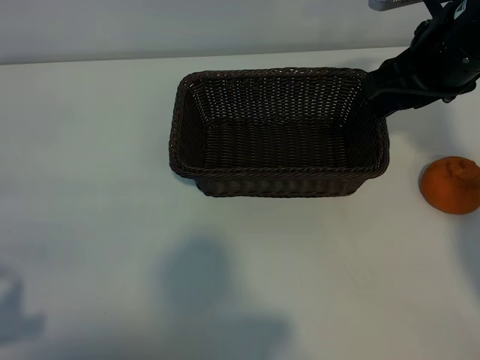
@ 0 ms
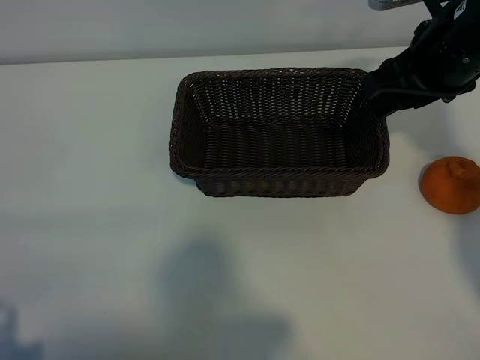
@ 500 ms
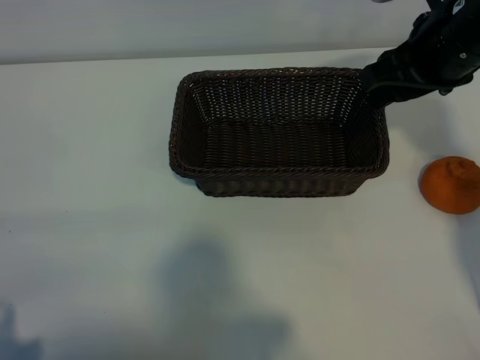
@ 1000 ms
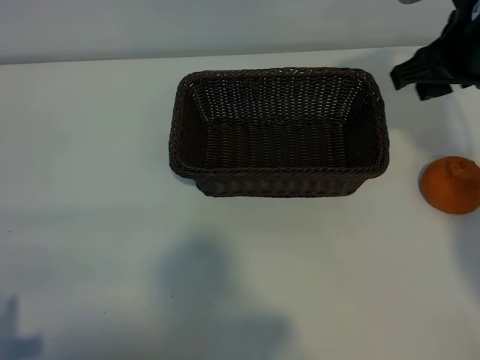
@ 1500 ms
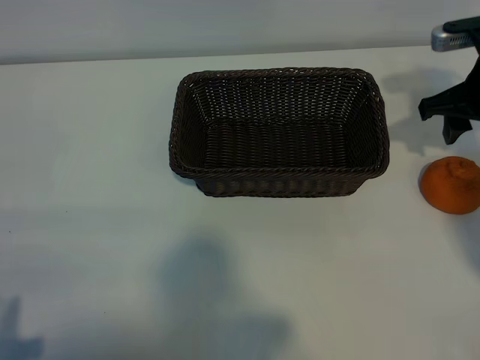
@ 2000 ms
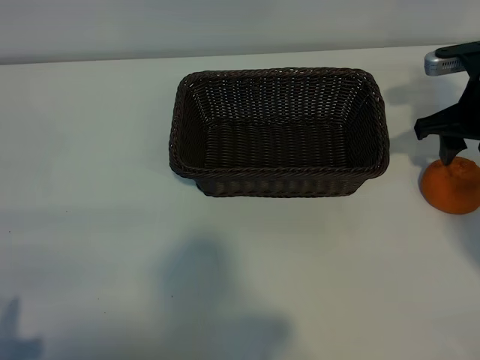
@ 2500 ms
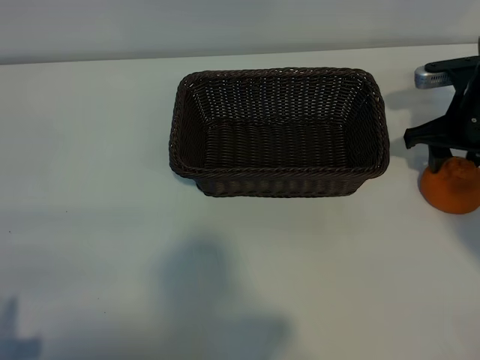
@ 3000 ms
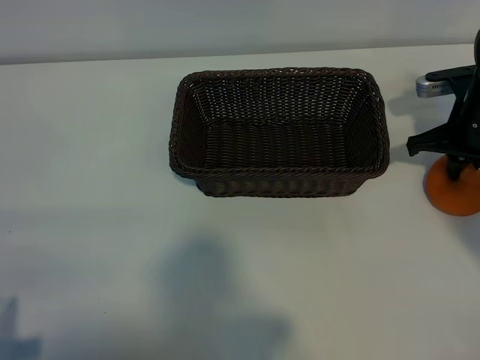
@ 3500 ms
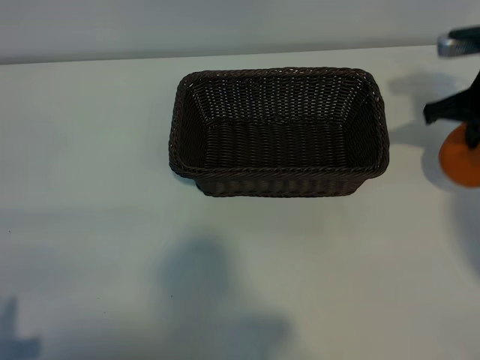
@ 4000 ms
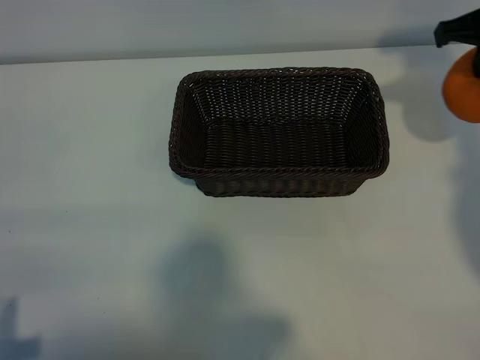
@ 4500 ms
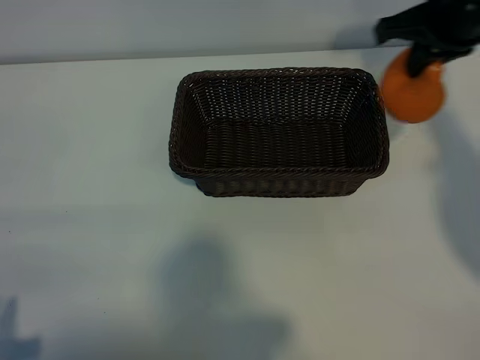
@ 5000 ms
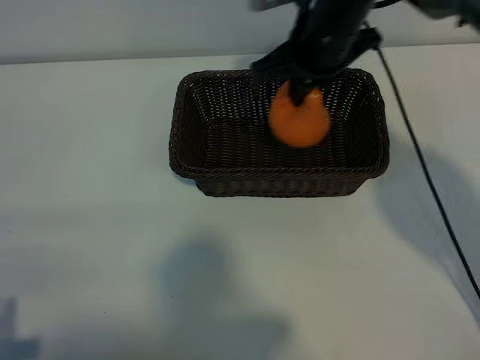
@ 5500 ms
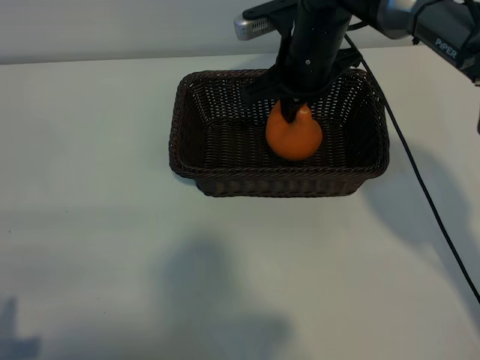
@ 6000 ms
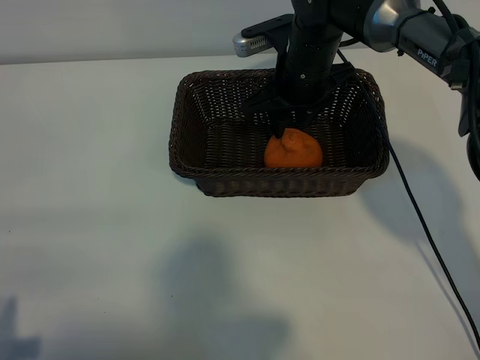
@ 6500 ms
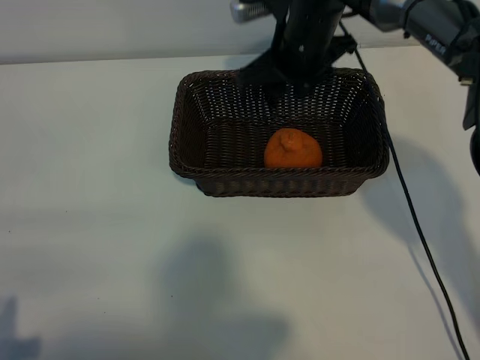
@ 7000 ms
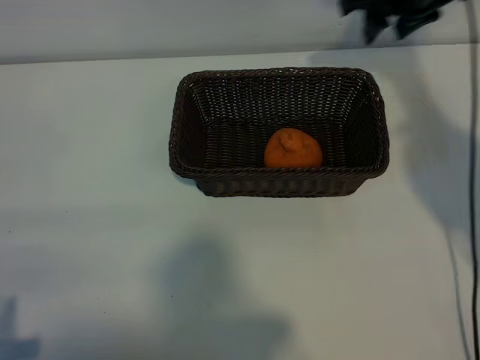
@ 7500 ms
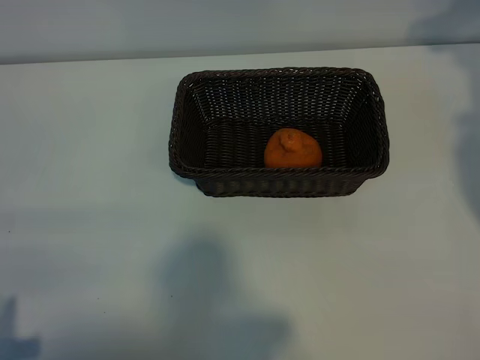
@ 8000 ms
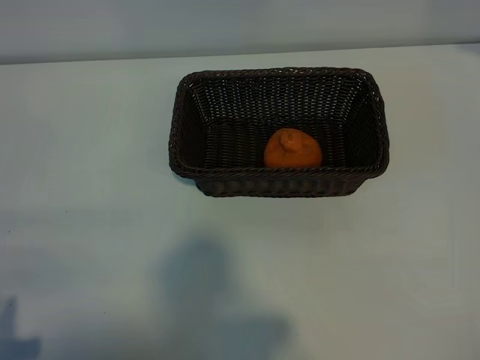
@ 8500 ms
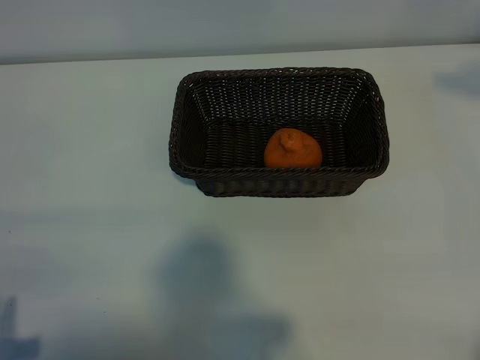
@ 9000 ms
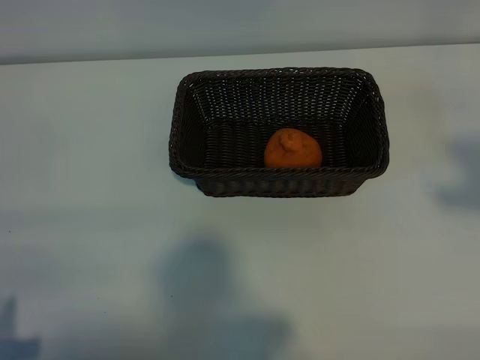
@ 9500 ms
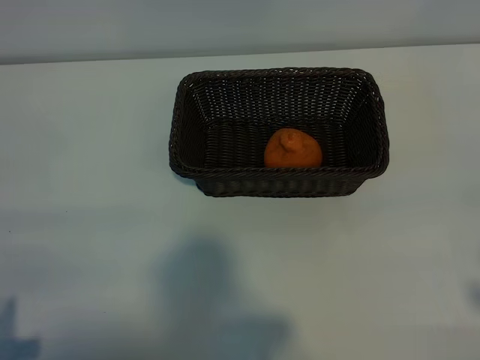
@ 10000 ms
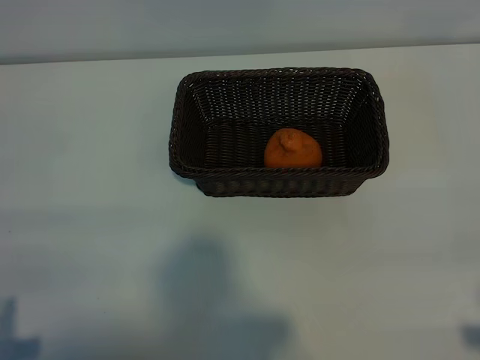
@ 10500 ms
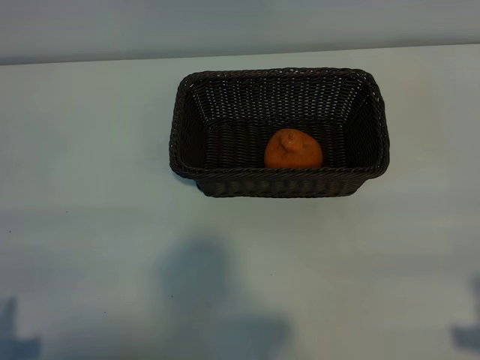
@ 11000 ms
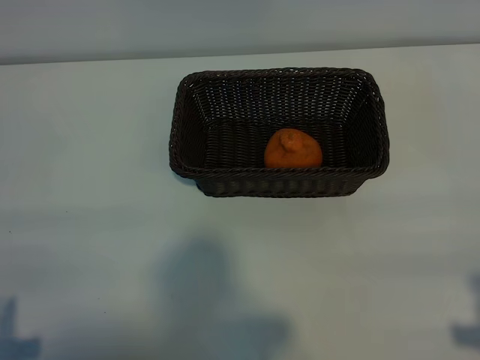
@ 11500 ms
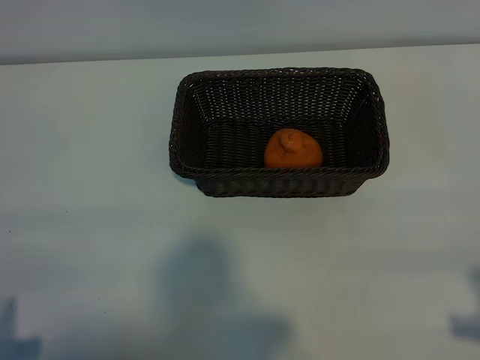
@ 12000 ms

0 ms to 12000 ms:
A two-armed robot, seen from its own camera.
Task of the whole recording: pick up the orange and put it into the basket.
Step, 0 ms to 3500 ms: Grasp the orange with right gripper.
Step, 4000 ms to 6000 ms: Place the orange in the basket with right gripper.

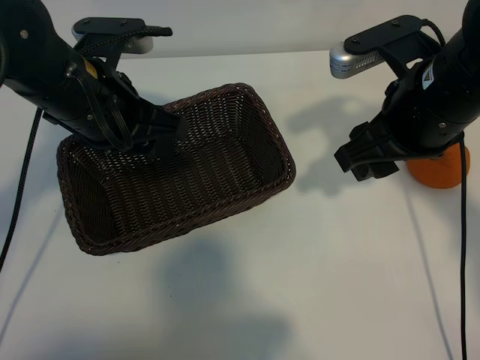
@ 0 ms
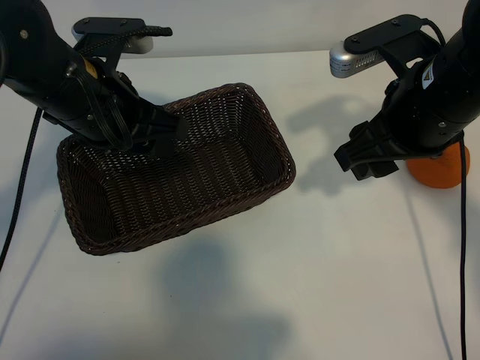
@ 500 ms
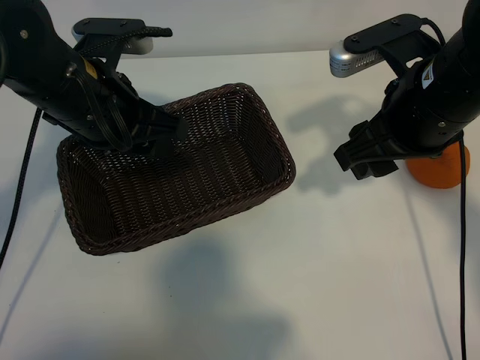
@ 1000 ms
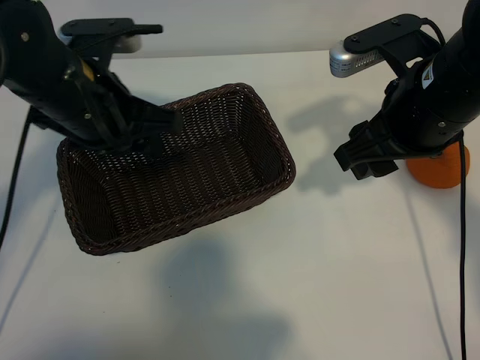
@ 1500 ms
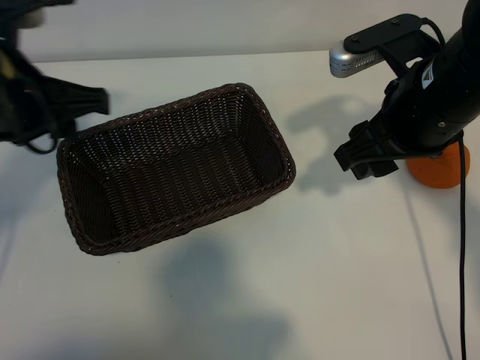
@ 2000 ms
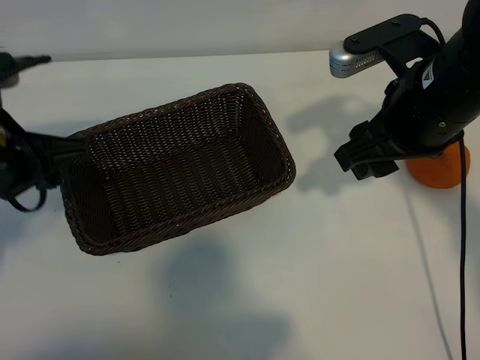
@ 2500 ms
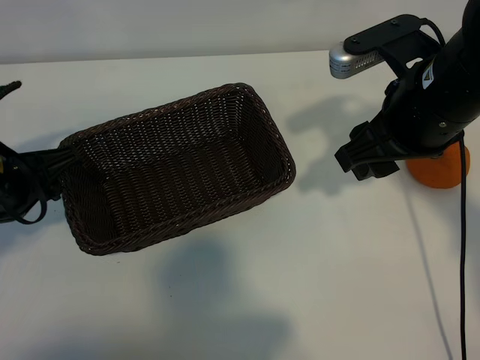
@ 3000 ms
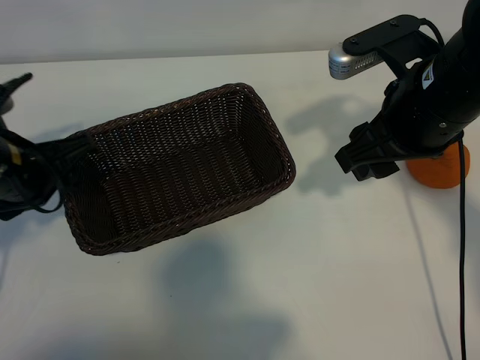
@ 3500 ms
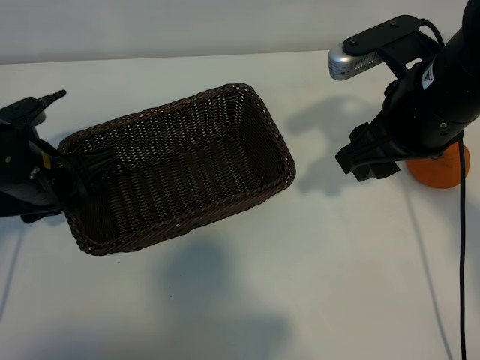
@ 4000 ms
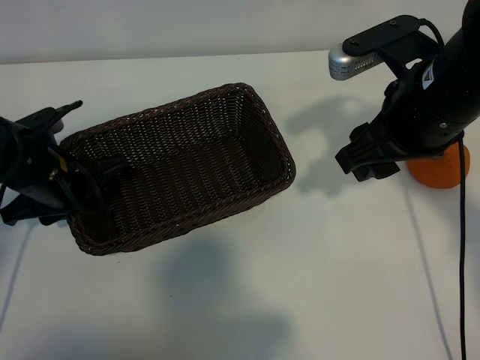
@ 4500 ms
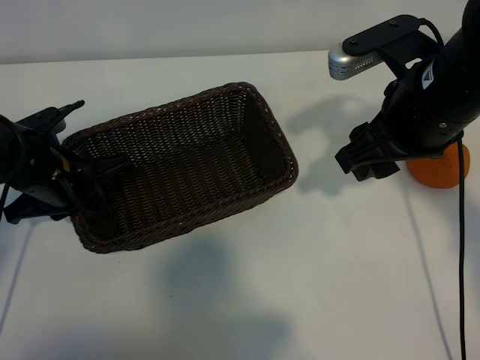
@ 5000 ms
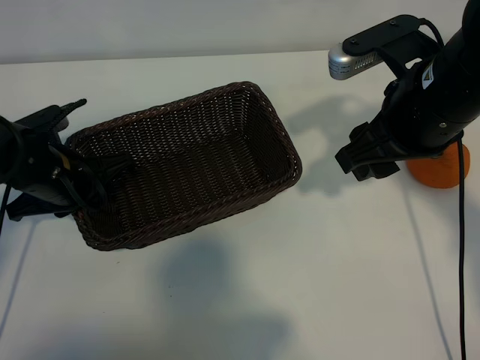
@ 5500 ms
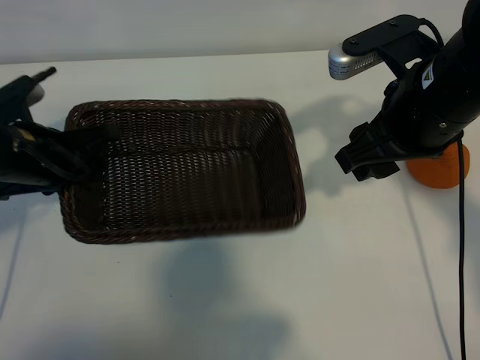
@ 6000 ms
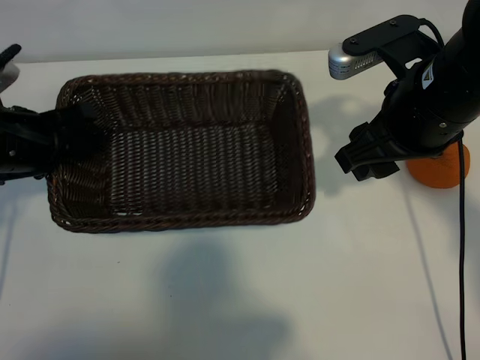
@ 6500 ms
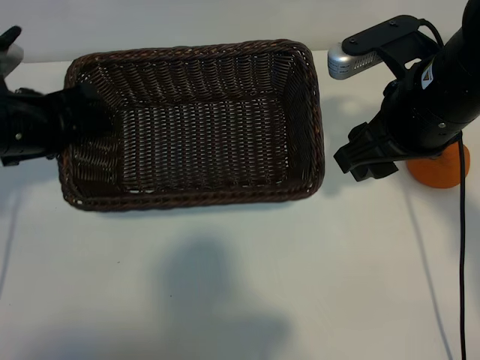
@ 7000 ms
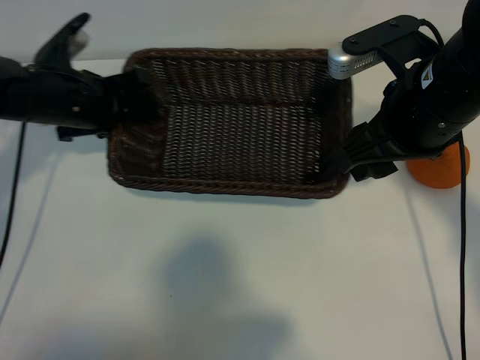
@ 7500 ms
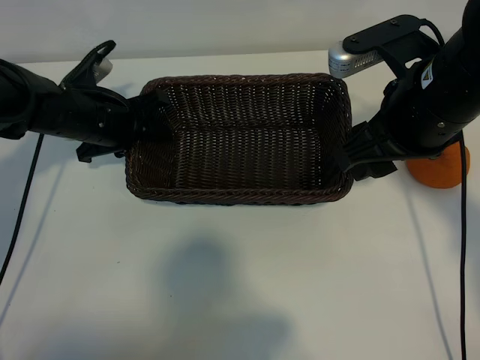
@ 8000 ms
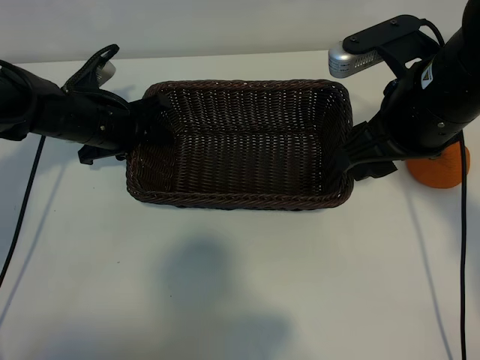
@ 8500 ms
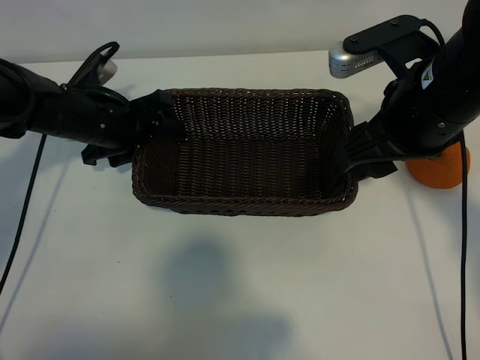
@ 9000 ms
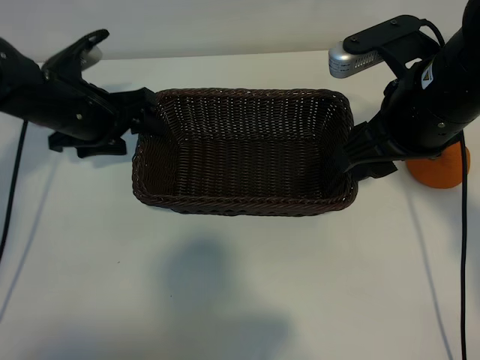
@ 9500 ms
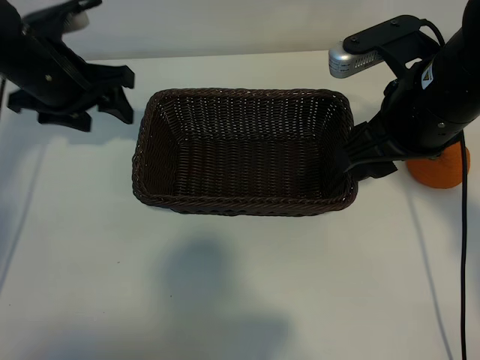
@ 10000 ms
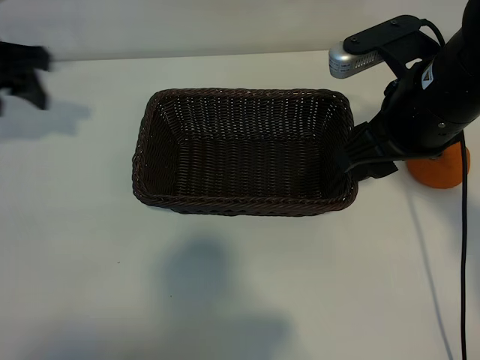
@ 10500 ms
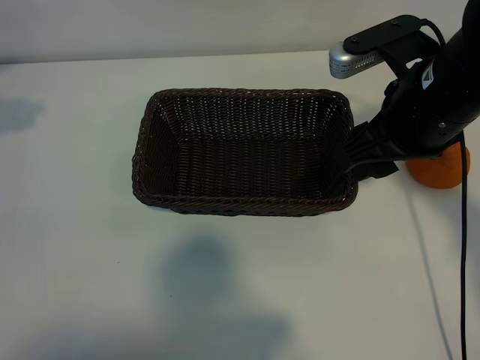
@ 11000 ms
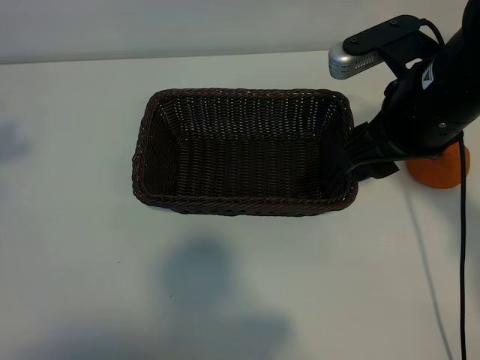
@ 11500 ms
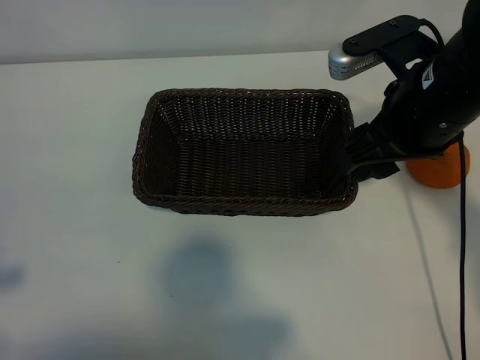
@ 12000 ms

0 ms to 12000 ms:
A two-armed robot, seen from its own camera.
Task of the whole recording: pick up the orange and put it into the basket.
Step, 1500 ms to 5000 ms: Grasp the basket with left gripper.
Step, 6000 ms to 8500 ms: Place the basket in the center of view with left gripper.

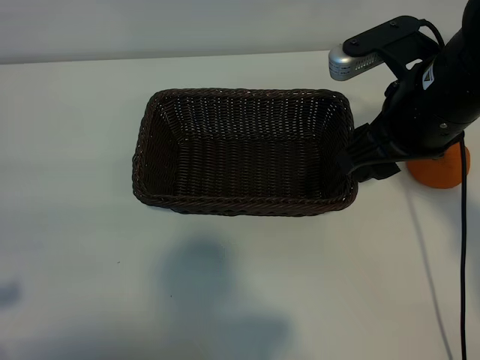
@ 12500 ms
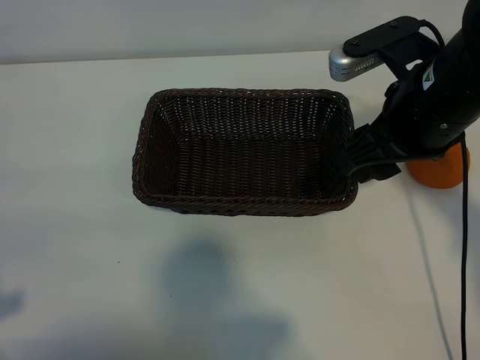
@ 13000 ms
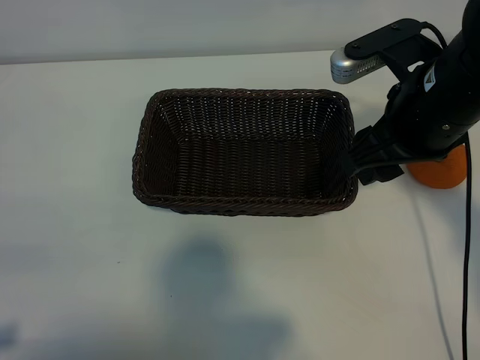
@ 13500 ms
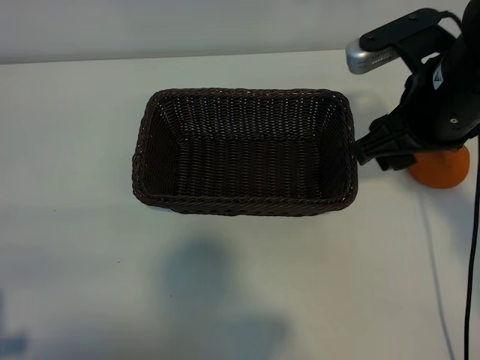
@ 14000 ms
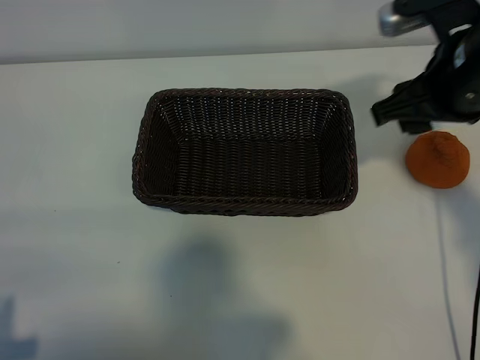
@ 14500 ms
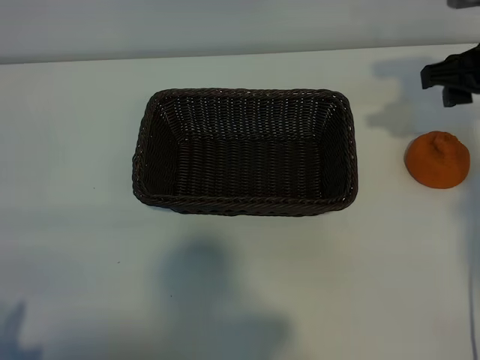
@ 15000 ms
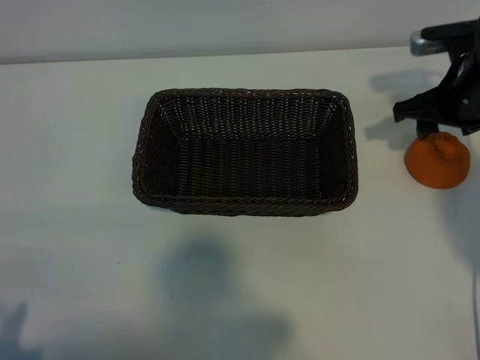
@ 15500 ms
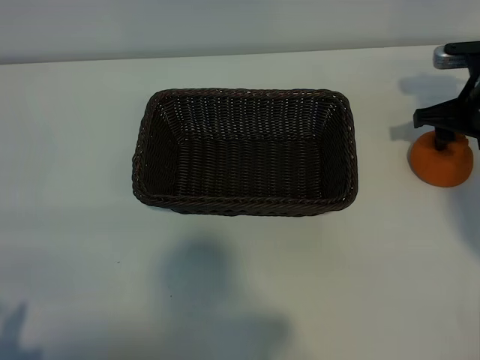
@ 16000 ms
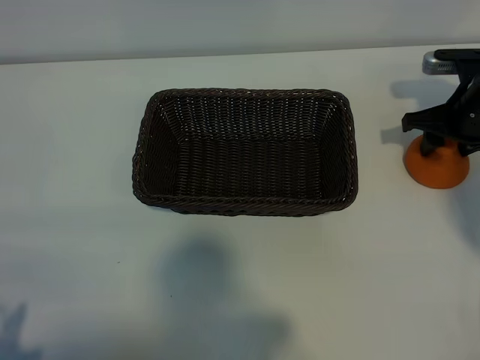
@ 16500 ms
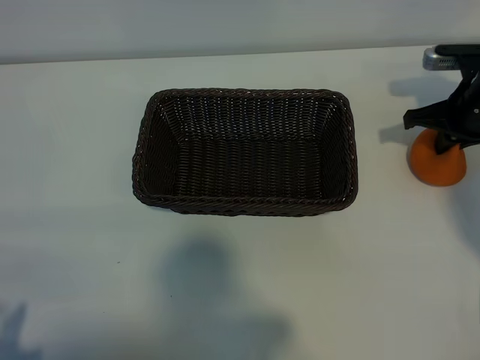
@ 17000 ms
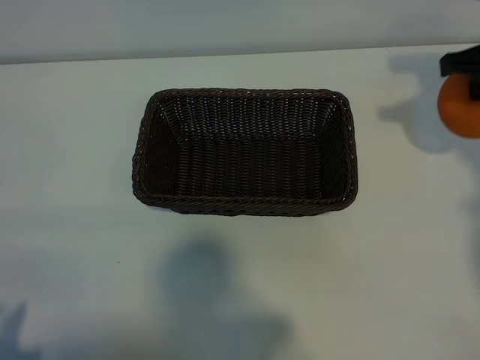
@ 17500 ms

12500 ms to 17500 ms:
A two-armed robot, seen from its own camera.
Task of the whole recording: pick up the orange and put it into the basket.
Step, 12500 ms to 16500 ms: Grasp the orange with right gripper.
